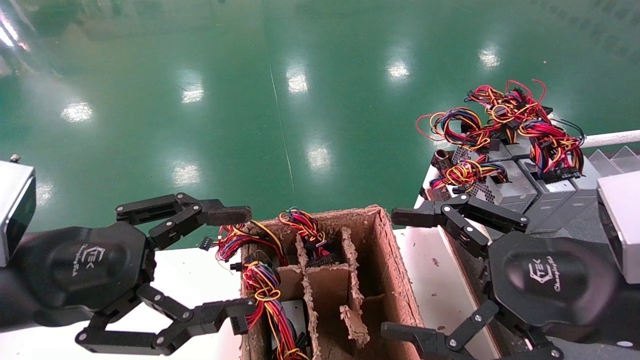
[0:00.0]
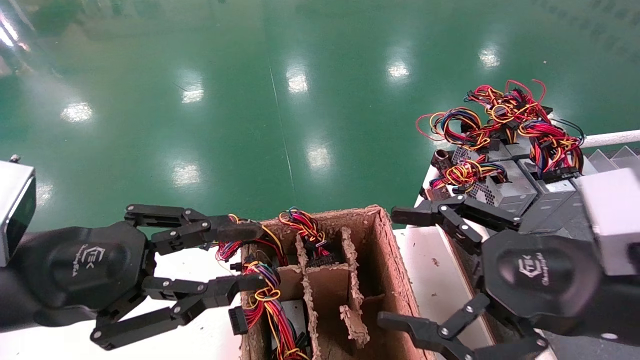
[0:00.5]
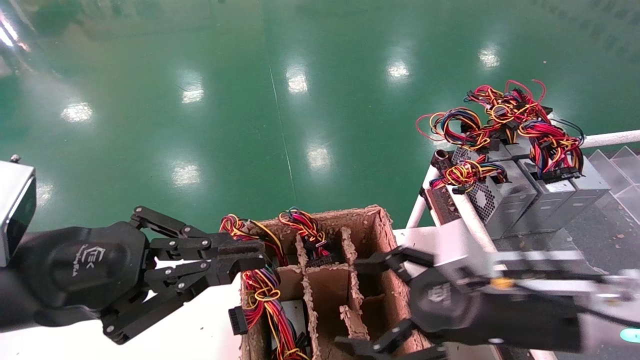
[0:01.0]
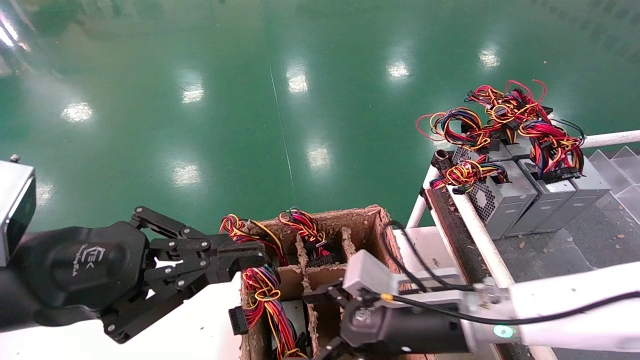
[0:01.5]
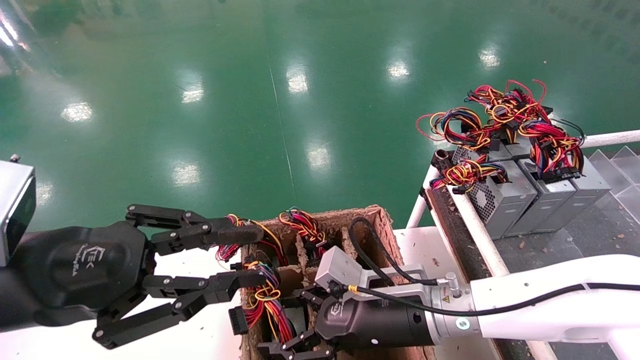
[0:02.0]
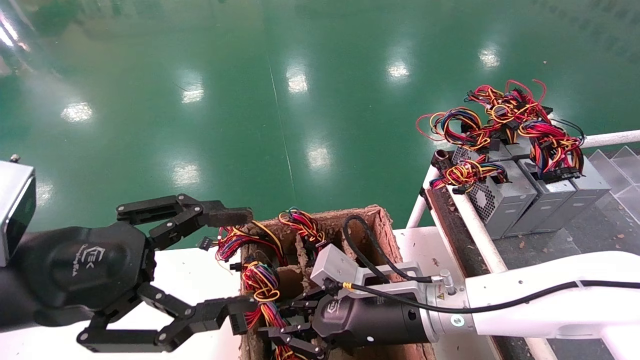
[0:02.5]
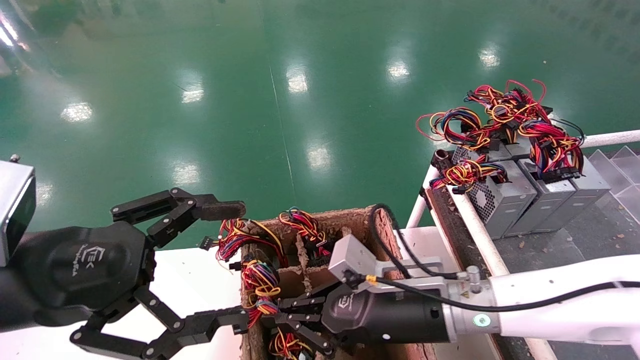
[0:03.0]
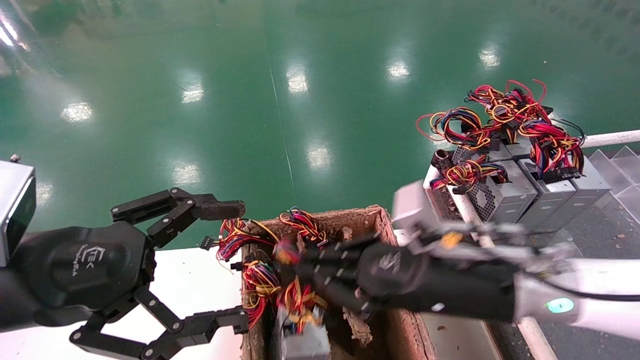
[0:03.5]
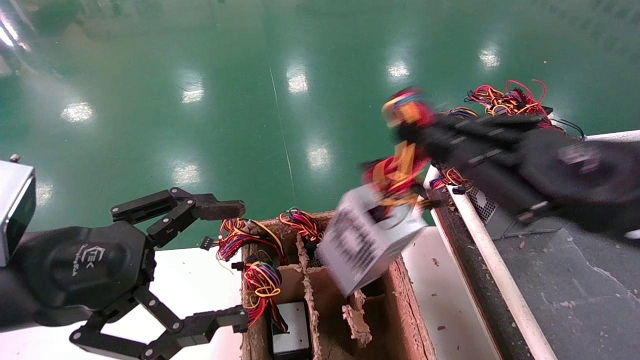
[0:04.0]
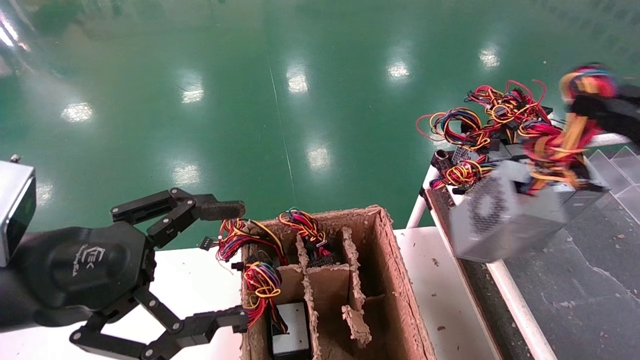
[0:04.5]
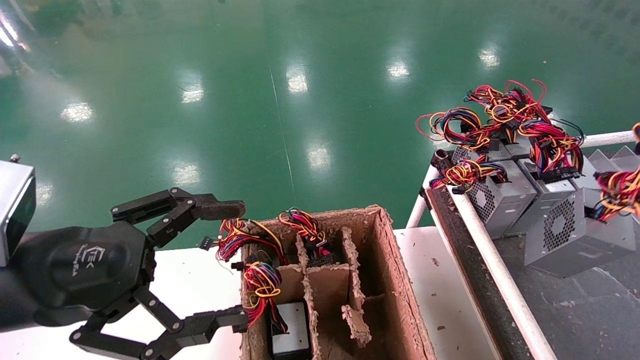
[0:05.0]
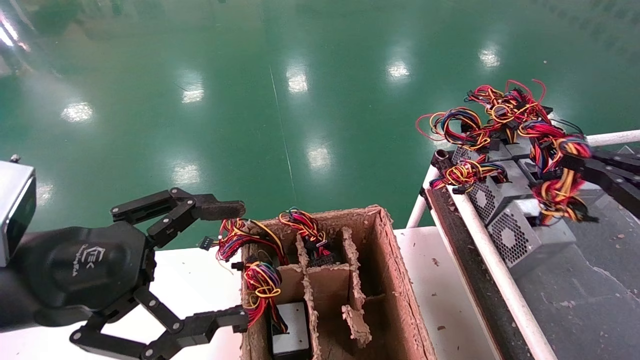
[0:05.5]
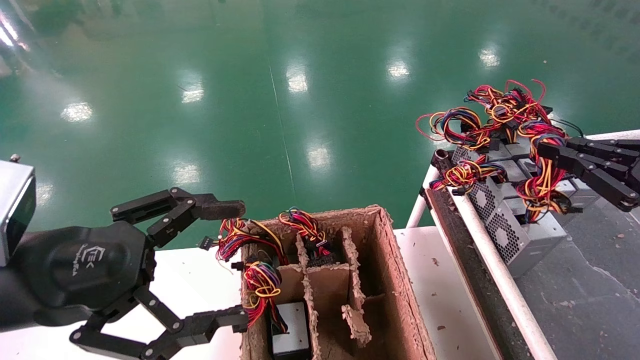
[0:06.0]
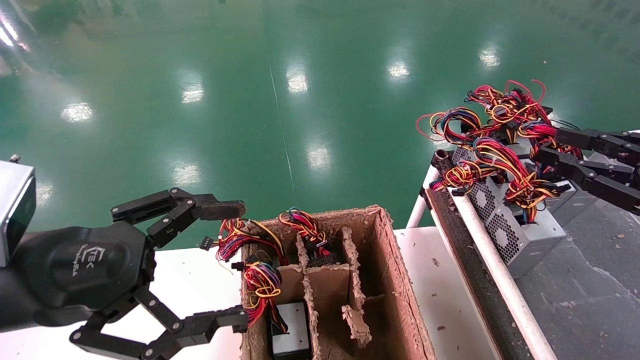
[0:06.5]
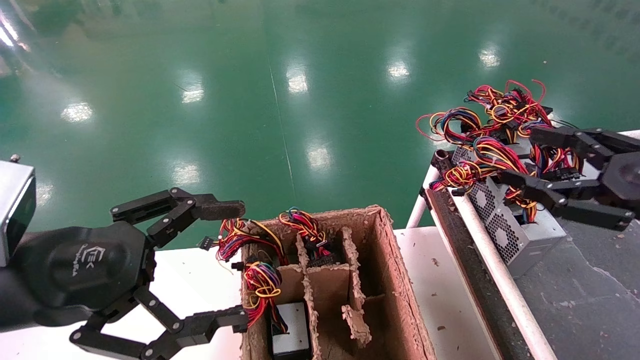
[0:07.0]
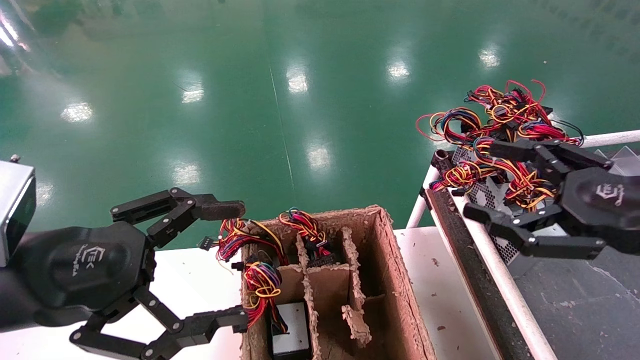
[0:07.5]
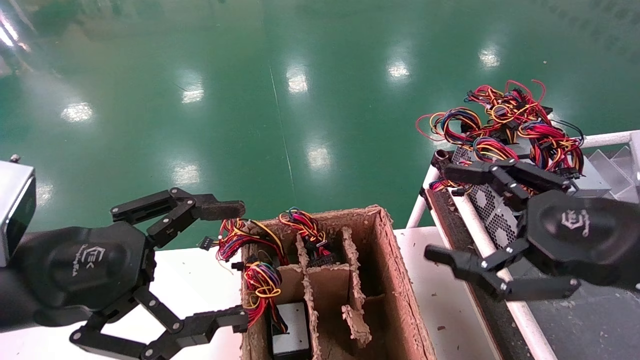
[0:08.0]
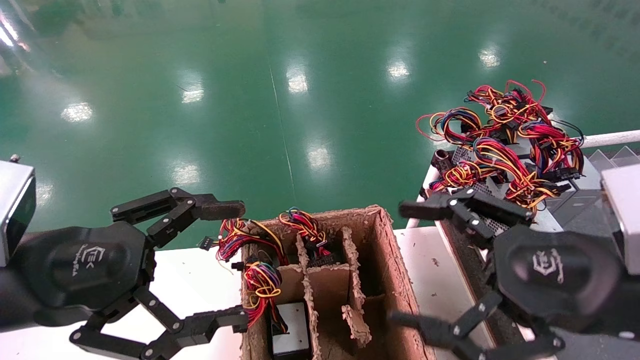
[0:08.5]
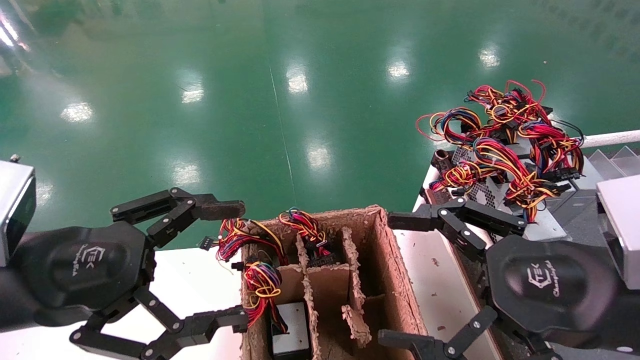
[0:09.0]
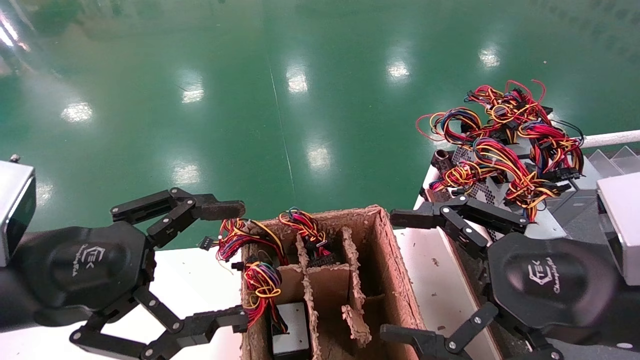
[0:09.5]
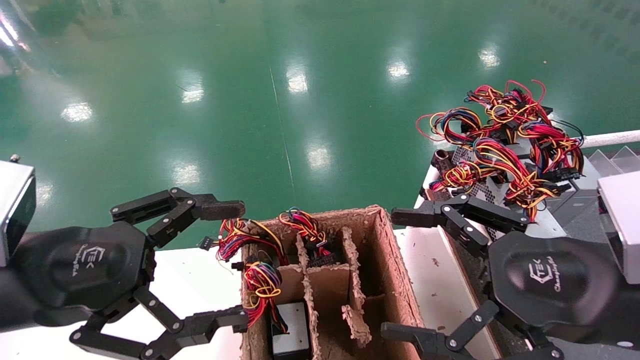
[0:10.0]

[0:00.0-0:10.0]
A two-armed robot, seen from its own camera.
Step, 0:01.0 to 0:03.5: Grab and lift the power supply from the large box.
Step, 0:04.0 to 0:06.5: Place the power supply on the operating table.
0:00.0 to 0:02.0: The left gripper closes, while the right gripper travels to the left, forward and downward by approximately 25 cm.
0:02.0 to 0:04.0: The left gripper opens its fingers. Meanwhile the right gripper shifts about 25 cm to the right, upward and backward, and closes up.
0:04.0 to 0:06.0: The right gripper heads to the right, covering approximately 15 cm.
0:06.0 to 0:08.0: The right gripper shifts roughly 15 cm to the left, and opens its fingers.
0:08.0 to 0:10.0: The right gripper shifts by approximately 5 cm.
